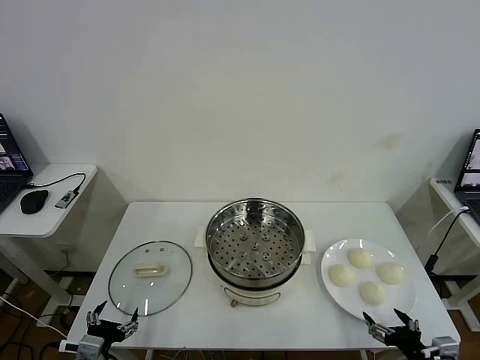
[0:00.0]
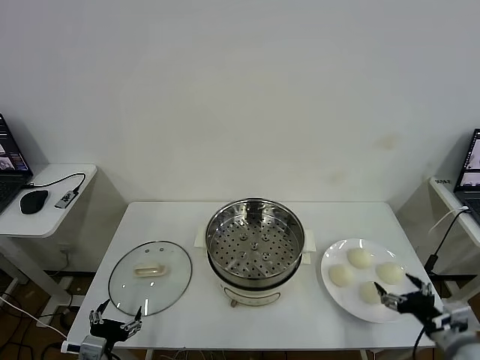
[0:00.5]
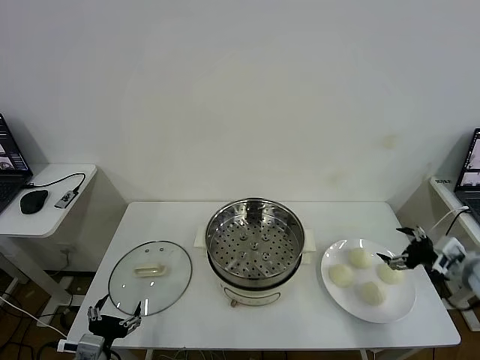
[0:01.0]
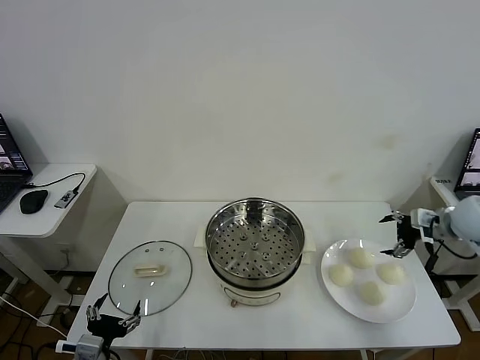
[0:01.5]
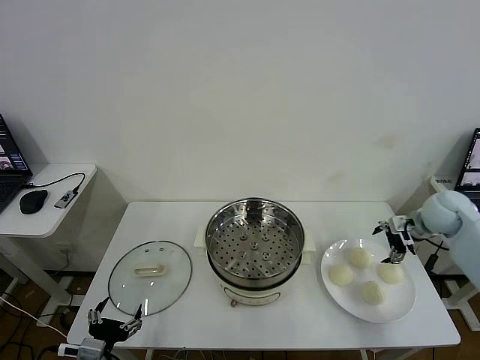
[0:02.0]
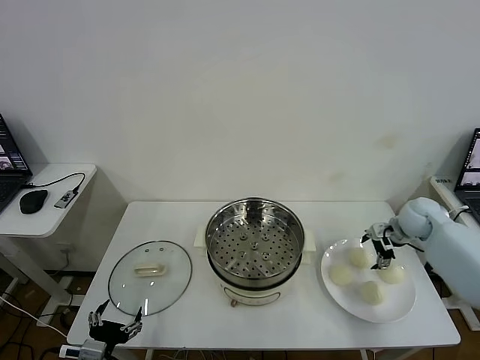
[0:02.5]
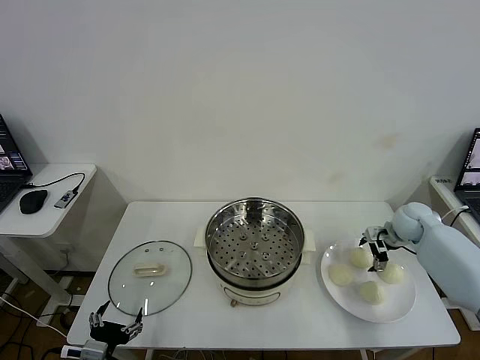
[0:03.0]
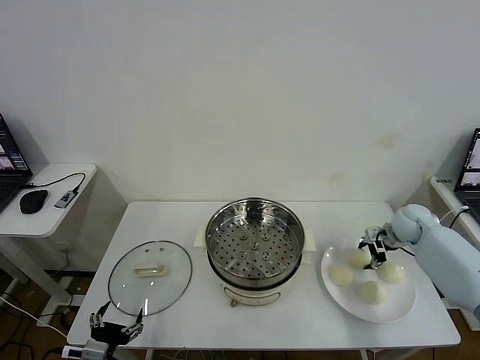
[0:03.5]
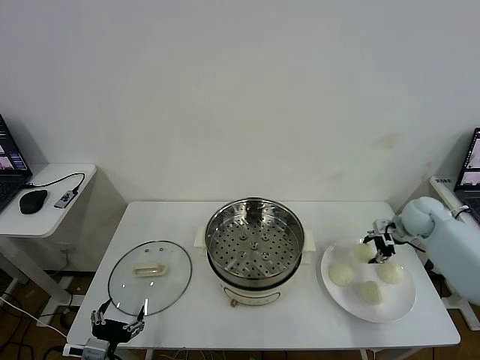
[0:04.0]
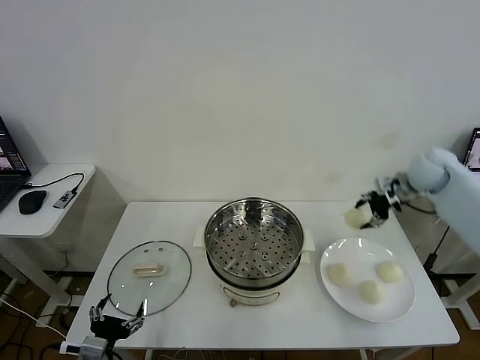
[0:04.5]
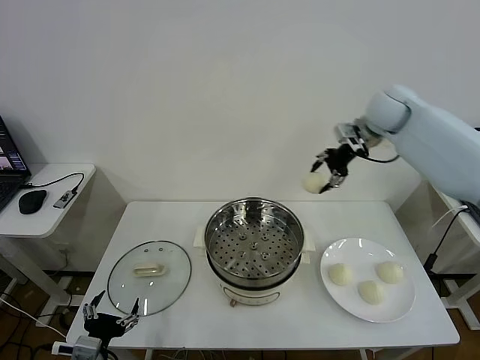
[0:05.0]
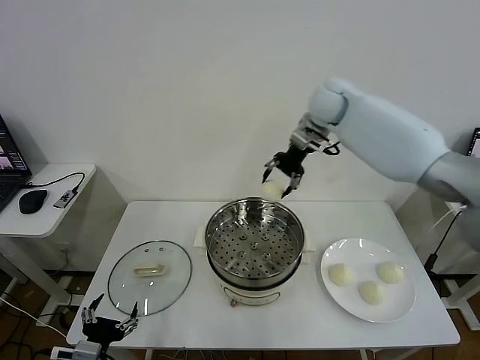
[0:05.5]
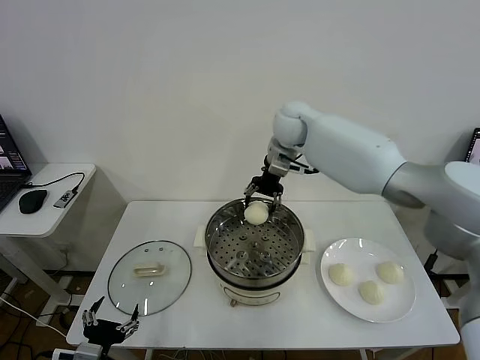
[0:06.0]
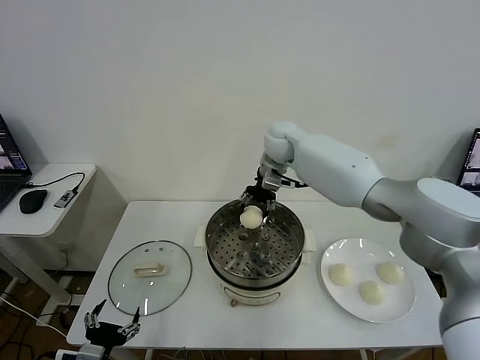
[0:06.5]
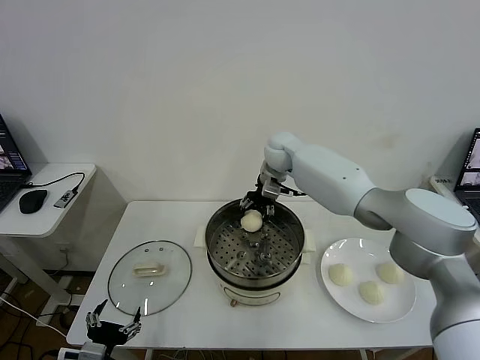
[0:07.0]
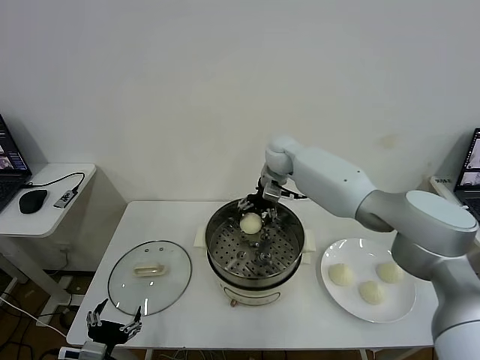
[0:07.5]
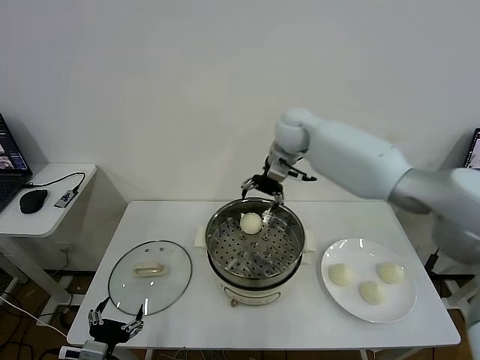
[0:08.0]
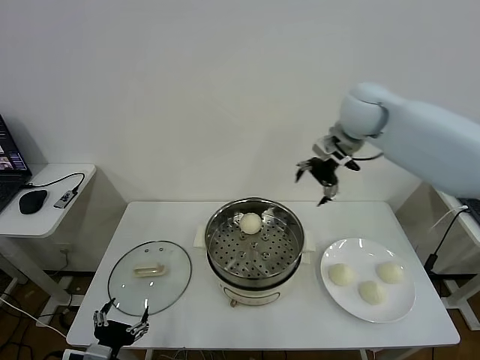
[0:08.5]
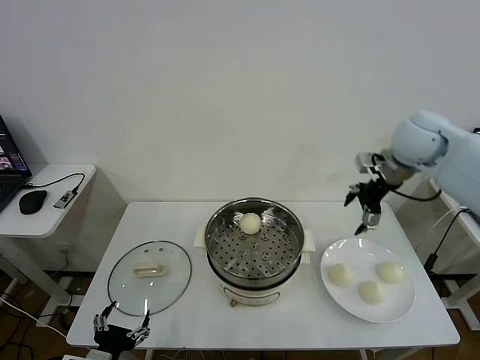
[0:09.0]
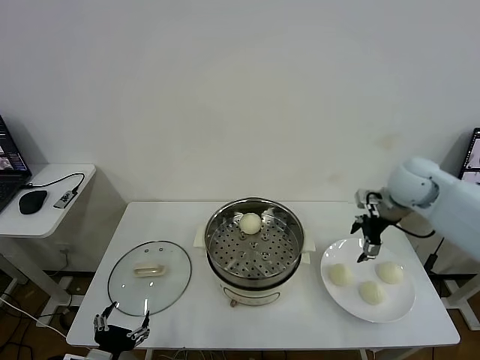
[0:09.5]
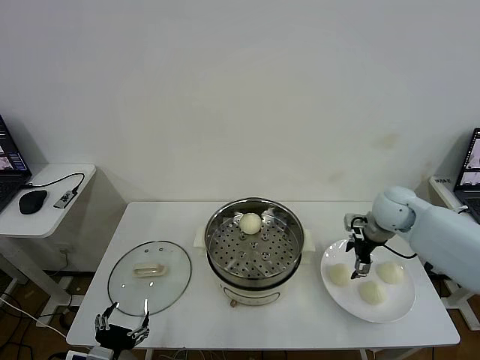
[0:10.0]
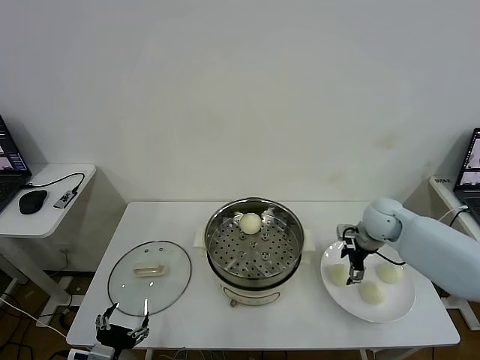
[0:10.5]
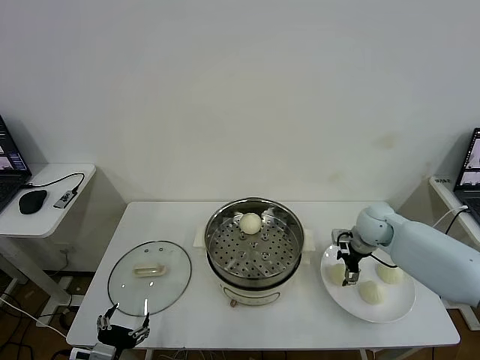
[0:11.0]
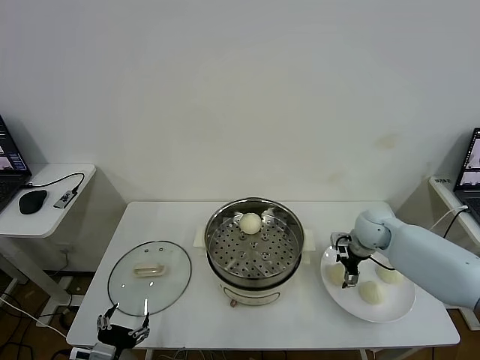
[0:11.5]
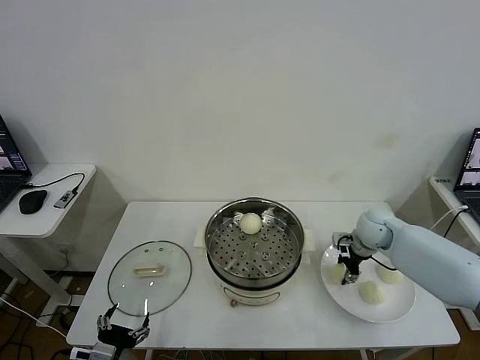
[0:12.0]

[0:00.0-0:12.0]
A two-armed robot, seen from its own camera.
Task of the whole recording: take steamed baozi put them in steamer then cover it.
Step, 0:00.0 to 0:03.5: Grasp the baozi in the plate with right gripper.
Step, 0:04.0 to 0:07.5: Place the baozi on the steamer with right gripper.
0:02.0 to 0:04.0: The right gripper closes its fingers.
0:04.0 to 0:06.0: The right gripper shifts approximately 40 cm to the left and upward.
0:06.0 to 0:08.0: The right gripper goes downward and returns, approximately 5 cm each way, and opens up.
0:08.0 to 0:10.0: The right gripper travels to the right, downward and backward by about 30 cm.
0:10.0 to 0:12.0: The right gripper travels downward by roughly 5 cm, and closes up.

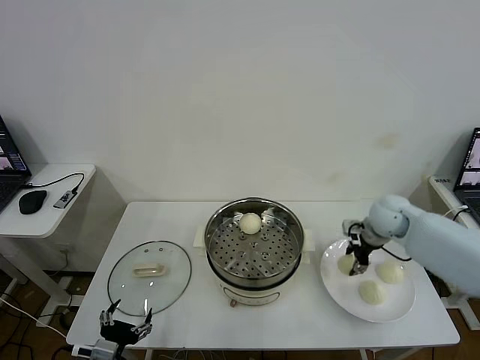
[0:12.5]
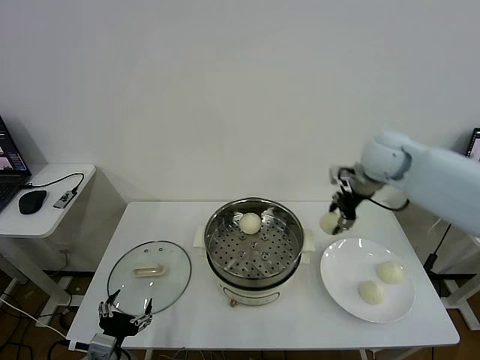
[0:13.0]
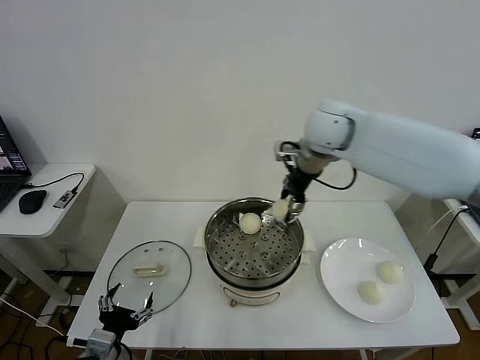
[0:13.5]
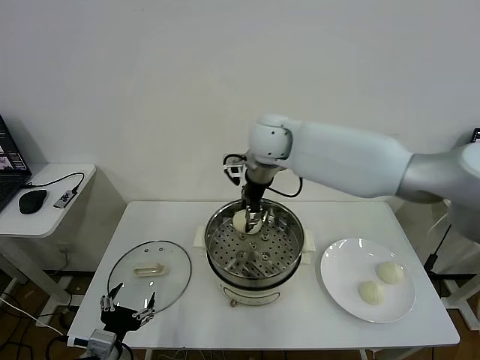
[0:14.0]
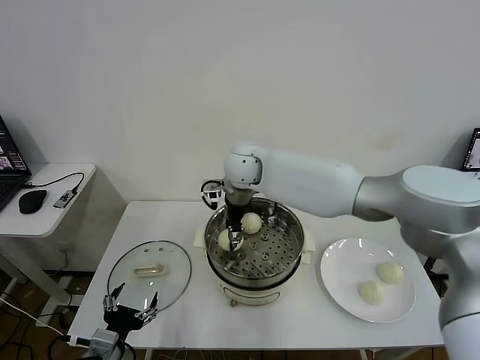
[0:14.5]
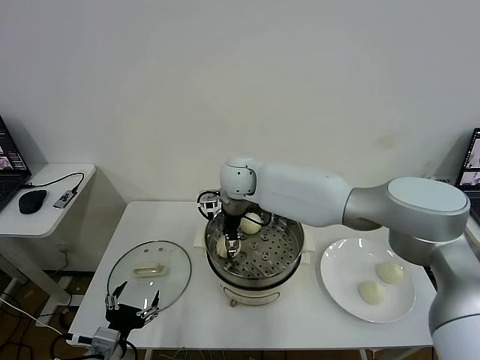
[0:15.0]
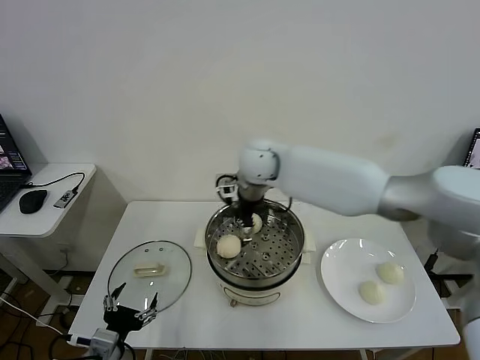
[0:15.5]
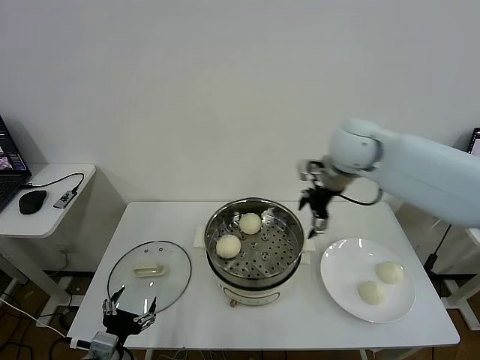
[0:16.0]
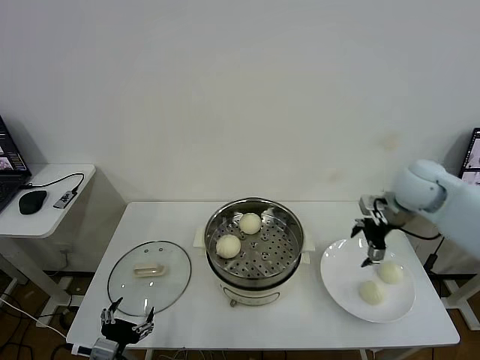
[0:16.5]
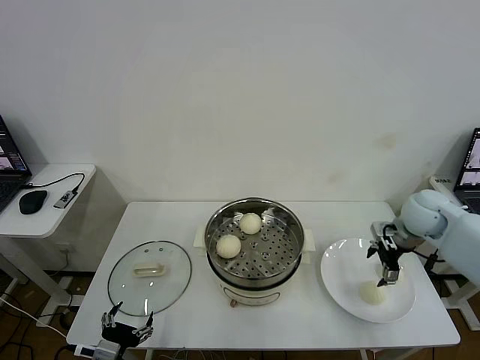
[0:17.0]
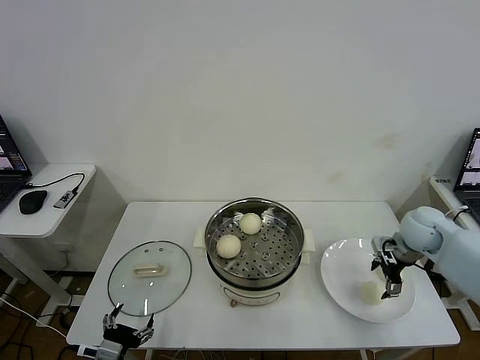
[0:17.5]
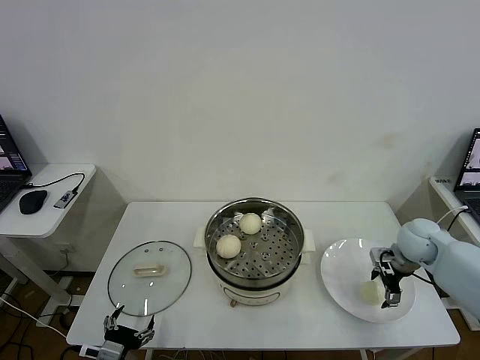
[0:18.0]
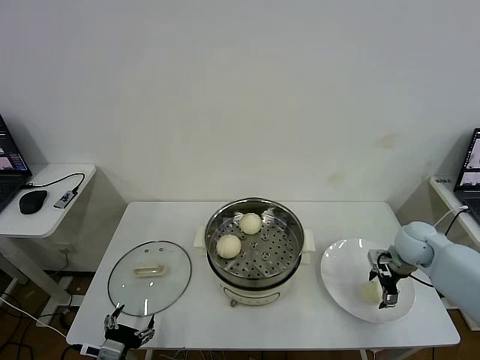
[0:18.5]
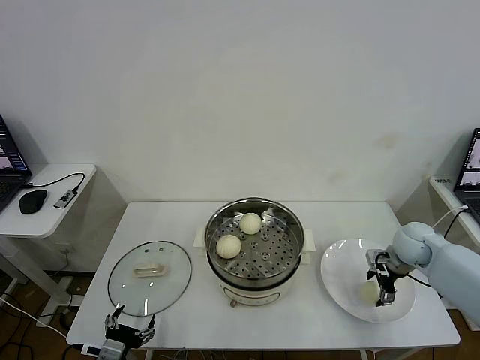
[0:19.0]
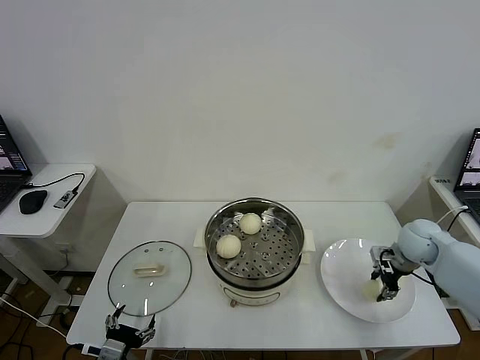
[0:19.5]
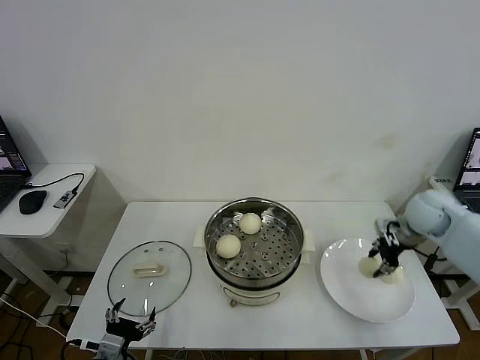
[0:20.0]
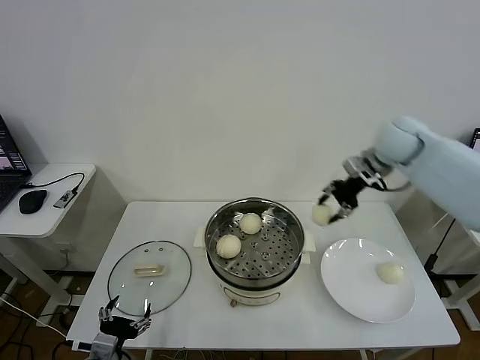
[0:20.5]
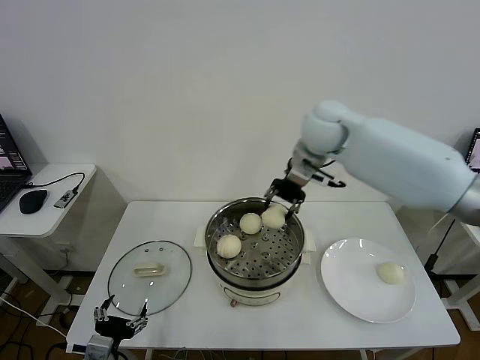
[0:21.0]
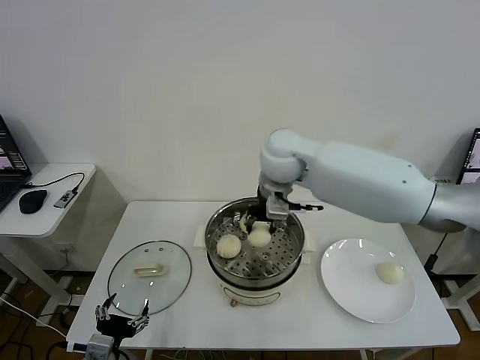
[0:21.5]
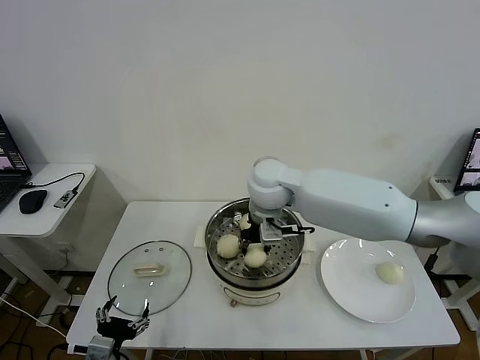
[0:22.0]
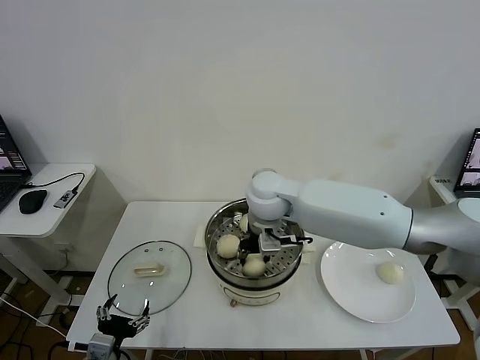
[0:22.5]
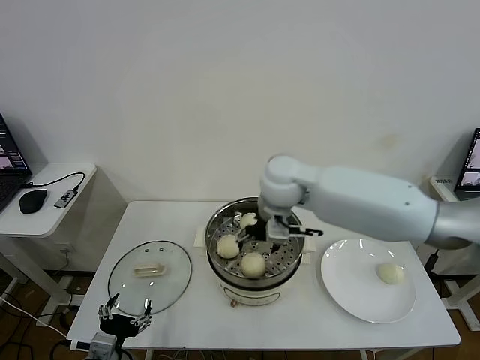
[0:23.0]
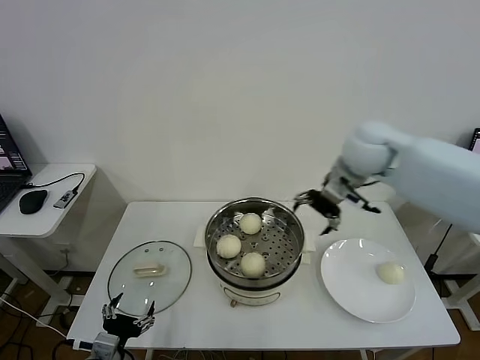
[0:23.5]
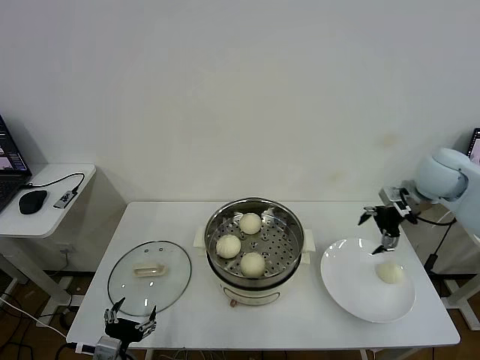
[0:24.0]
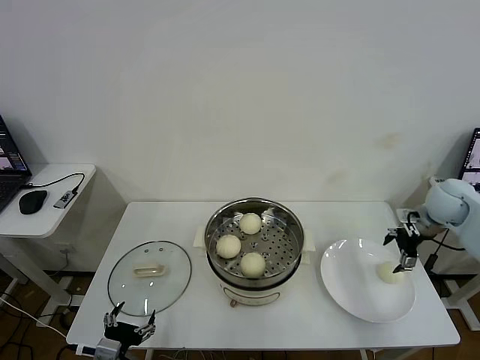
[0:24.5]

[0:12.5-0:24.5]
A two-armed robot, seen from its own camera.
Task of the whole recording: take steamed baozi put them in steamer then cover it.
Step, 0:12.5 to 0:15.0: Place the baozi on the steamer with right gripper.
Step, 0:15.5 to 0:19.0: Grasp the baozi in the plate with right gripper.
Step, 0:19.5 to 0:22.5: Place the baozi on the steamer with right gripper.
0:12.5 to 0:14.5: The right gripper is displaced to the left by approximately 35 cm.
0:14.5 to 0:16.5: The right gripper goes approximately 35 cm to the right, and opens up.
0:16.5 to 0:18.5: The right gripper heads downward, covering about 15 cm.
0:18.5 to 0:20.5: The right gripper travels upward, to the left and forward by some 30 cm, and closes.
0:20.5 to 0:22.5: The right gripper moves to the left, about 25 cm.
0:22.5 to 0:24.5: The right gripper is displaced to the right by approximately 40 cm, and opens.

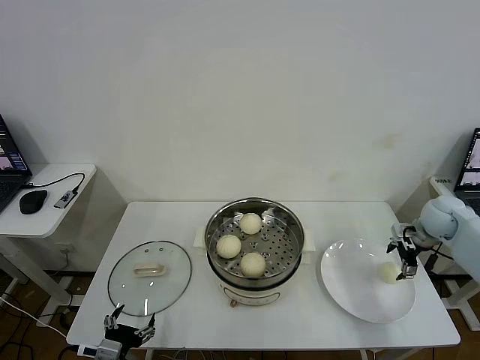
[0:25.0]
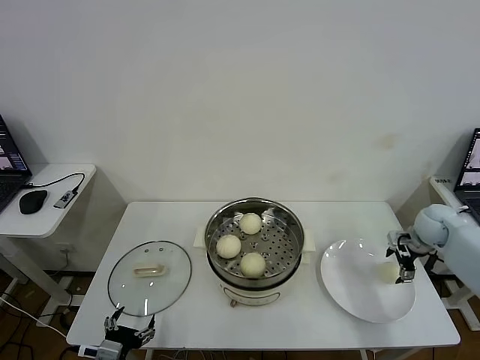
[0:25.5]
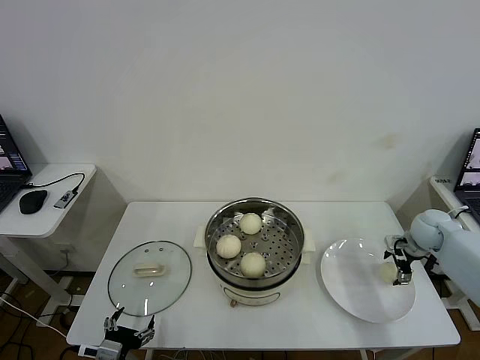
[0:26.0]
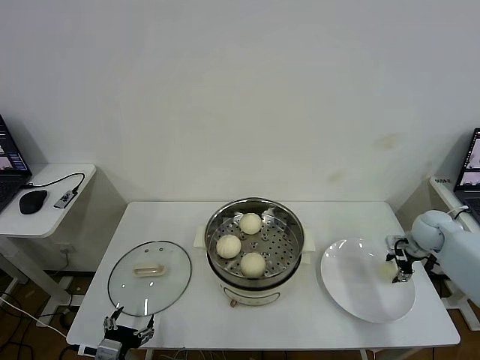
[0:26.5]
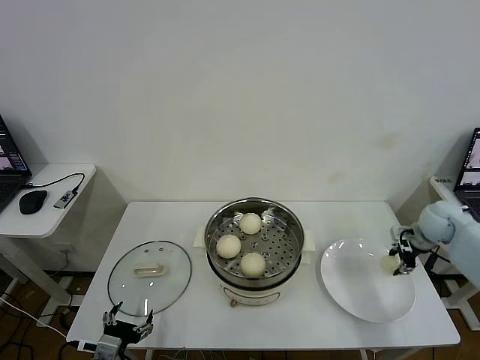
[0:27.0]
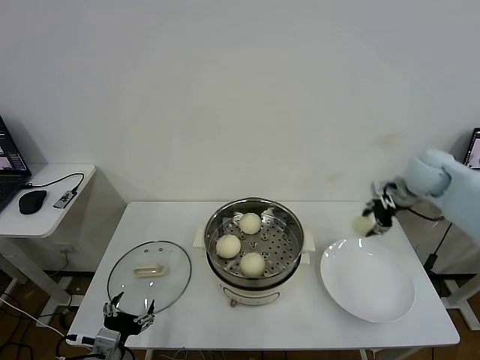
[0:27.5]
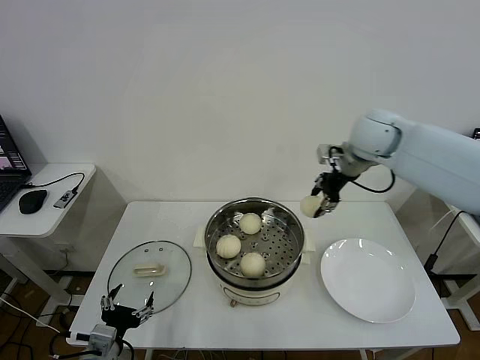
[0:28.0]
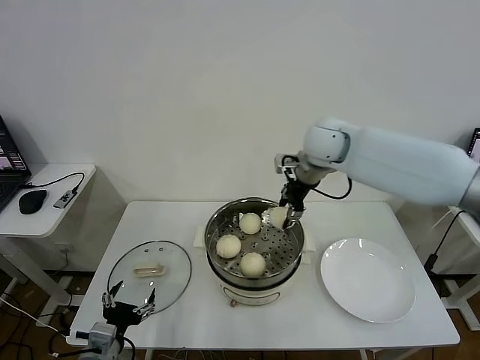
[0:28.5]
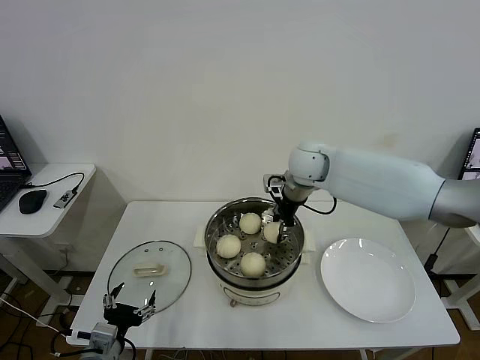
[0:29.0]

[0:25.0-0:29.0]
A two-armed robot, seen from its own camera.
Task of the whole recording: take steamed baozi put them in steamer then cover it.
0:25.0 to 0:27.0: The right gripper closes.
0:27.0 to 0:29.0: The right gripper heads to the left, covering about 35 cm.
